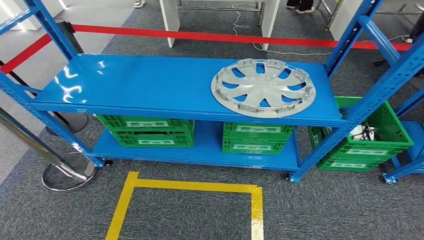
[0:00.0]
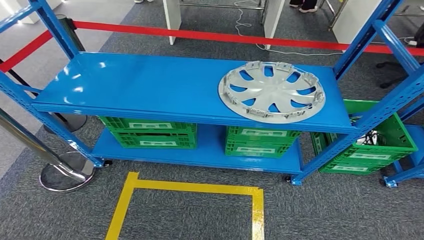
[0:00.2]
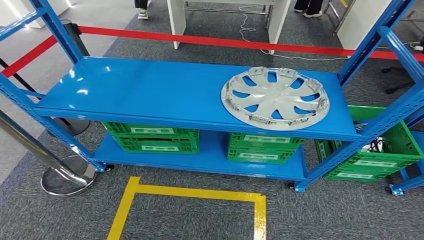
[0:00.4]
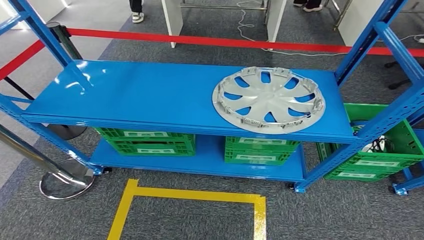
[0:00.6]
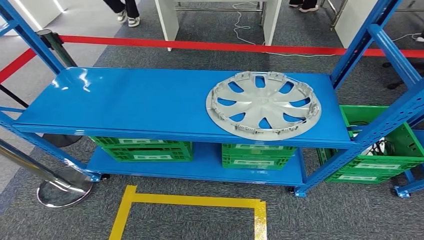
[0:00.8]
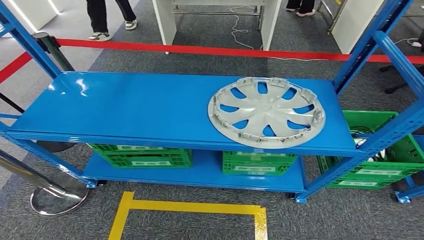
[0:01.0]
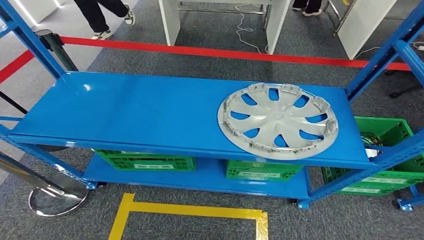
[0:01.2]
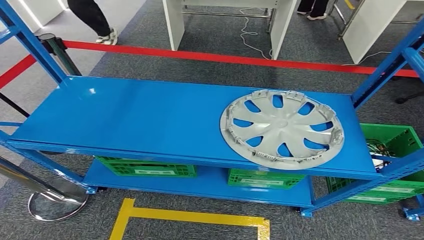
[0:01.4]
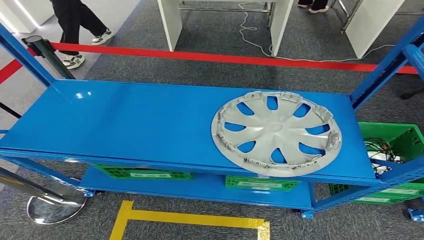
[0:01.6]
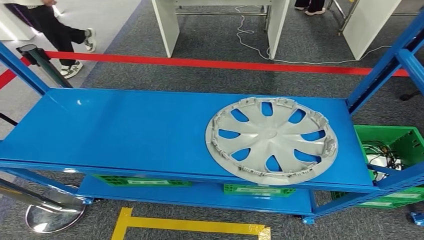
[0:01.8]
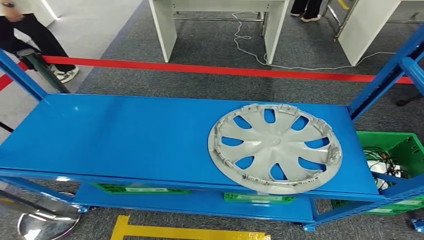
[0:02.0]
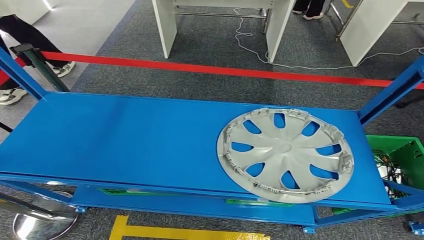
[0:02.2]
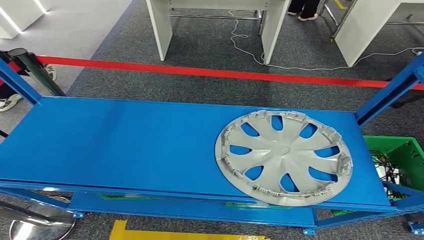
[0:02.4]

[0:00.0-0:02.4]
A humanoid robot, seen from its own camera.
Step, 0:00.0 to 0:02.4: Move to the initial position at the workbench.
